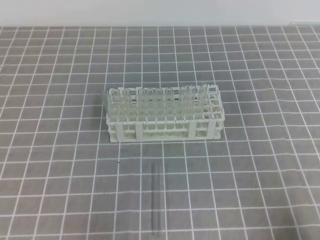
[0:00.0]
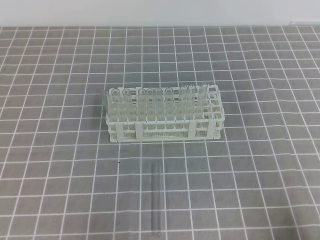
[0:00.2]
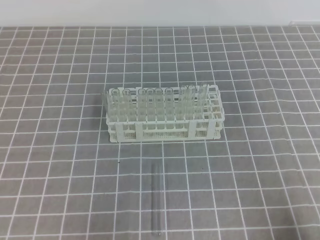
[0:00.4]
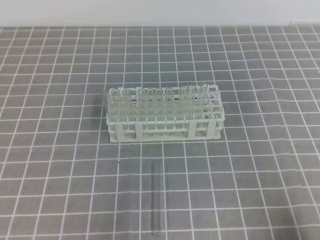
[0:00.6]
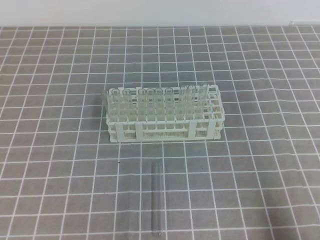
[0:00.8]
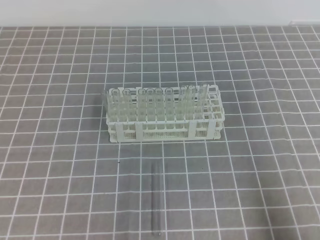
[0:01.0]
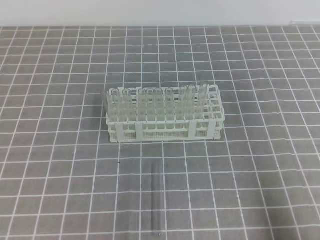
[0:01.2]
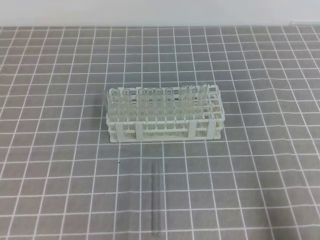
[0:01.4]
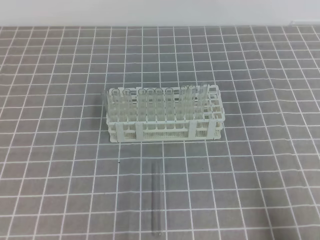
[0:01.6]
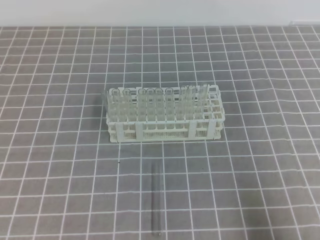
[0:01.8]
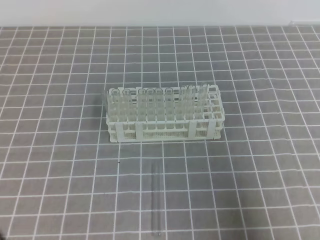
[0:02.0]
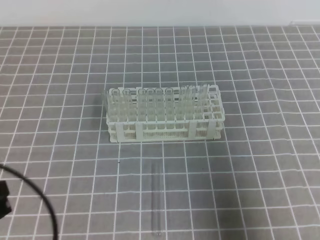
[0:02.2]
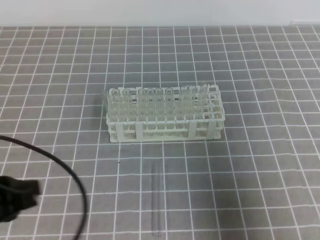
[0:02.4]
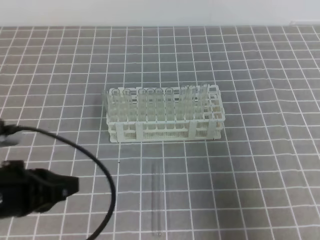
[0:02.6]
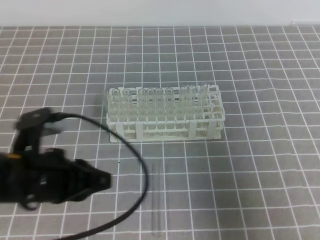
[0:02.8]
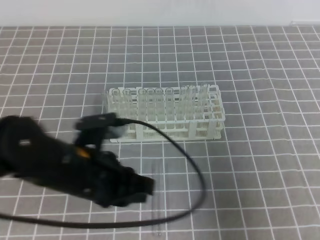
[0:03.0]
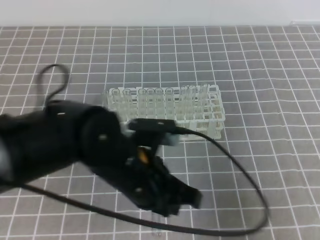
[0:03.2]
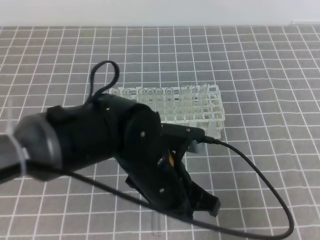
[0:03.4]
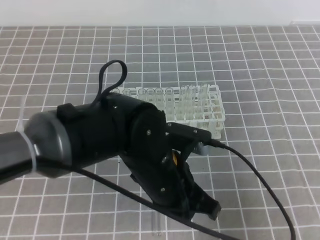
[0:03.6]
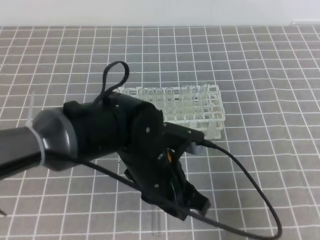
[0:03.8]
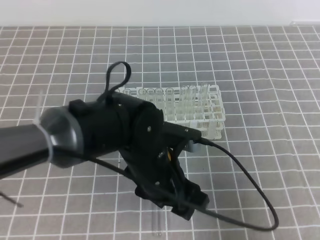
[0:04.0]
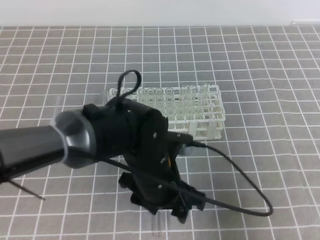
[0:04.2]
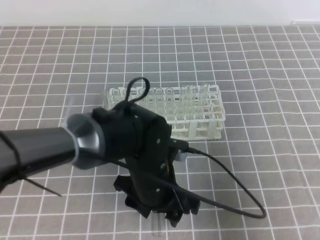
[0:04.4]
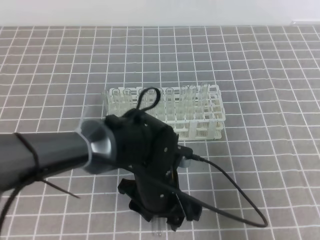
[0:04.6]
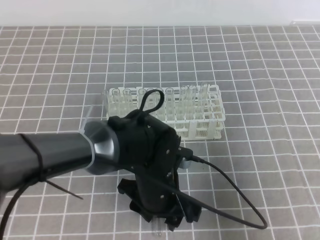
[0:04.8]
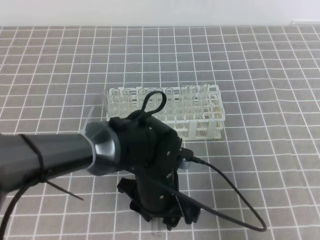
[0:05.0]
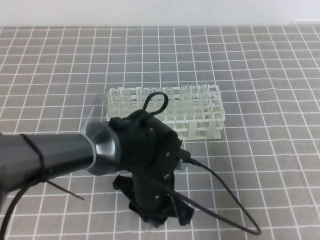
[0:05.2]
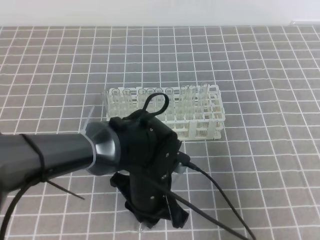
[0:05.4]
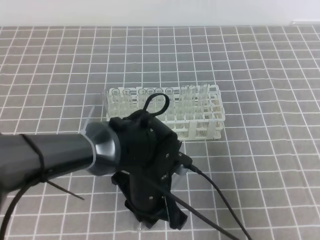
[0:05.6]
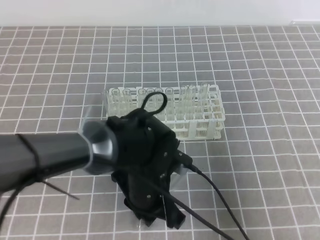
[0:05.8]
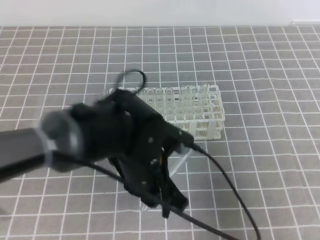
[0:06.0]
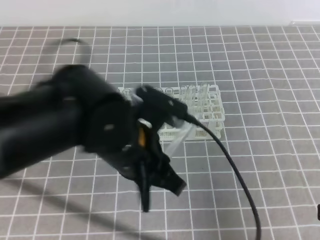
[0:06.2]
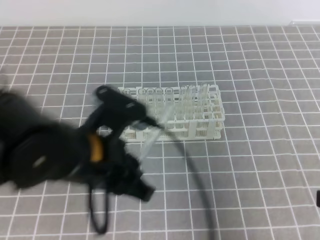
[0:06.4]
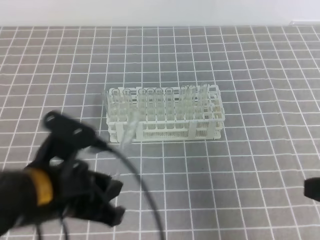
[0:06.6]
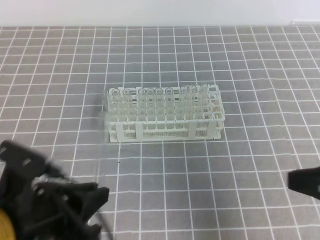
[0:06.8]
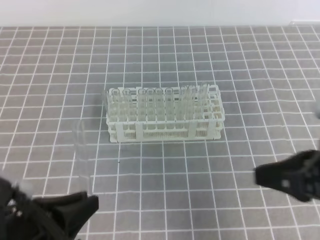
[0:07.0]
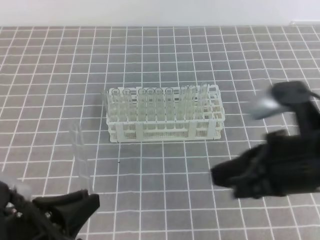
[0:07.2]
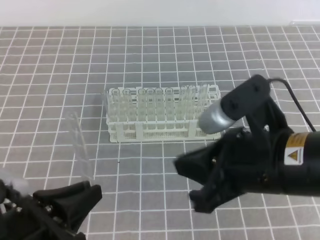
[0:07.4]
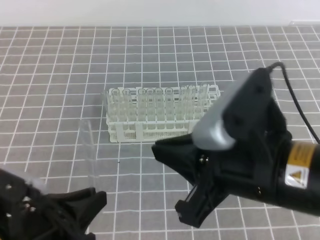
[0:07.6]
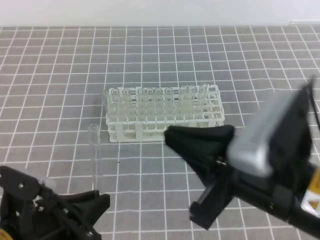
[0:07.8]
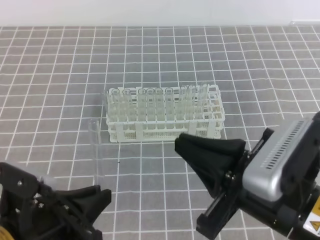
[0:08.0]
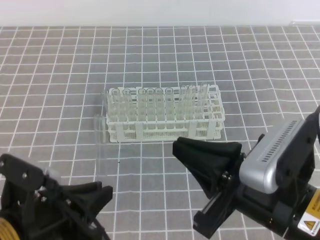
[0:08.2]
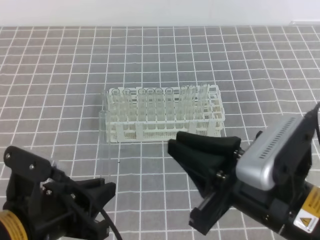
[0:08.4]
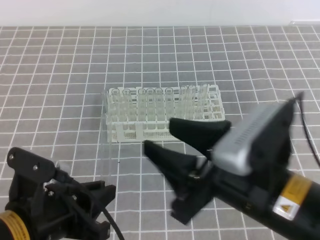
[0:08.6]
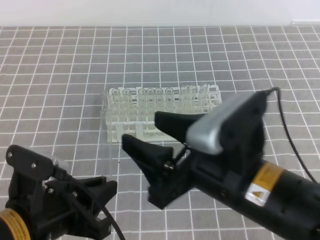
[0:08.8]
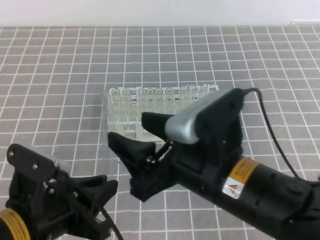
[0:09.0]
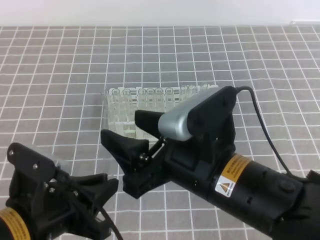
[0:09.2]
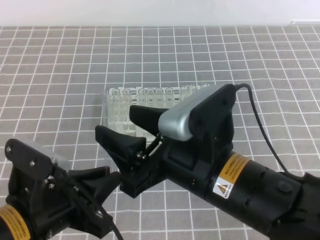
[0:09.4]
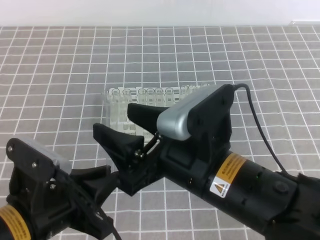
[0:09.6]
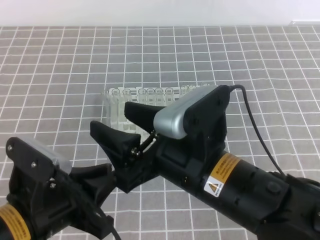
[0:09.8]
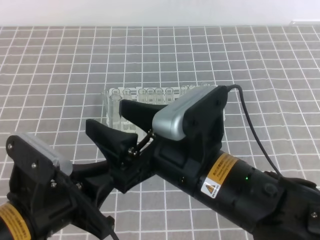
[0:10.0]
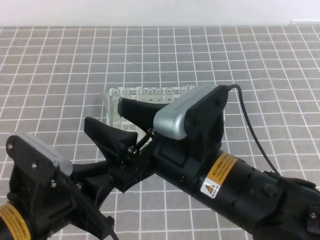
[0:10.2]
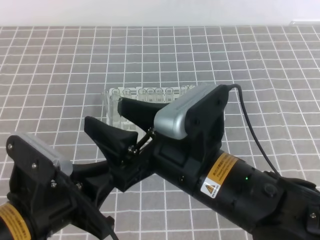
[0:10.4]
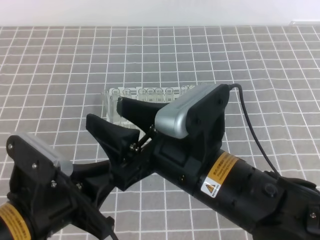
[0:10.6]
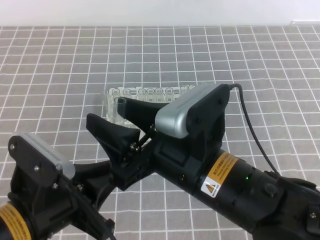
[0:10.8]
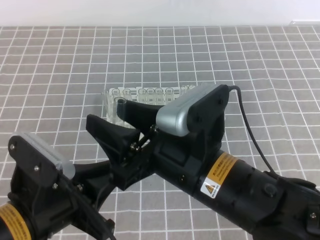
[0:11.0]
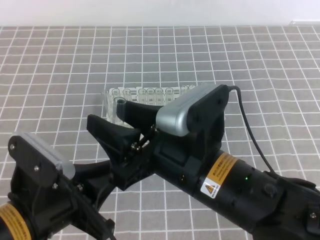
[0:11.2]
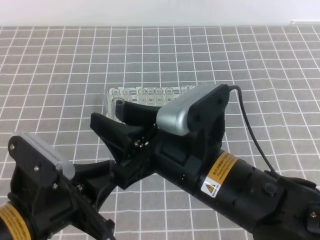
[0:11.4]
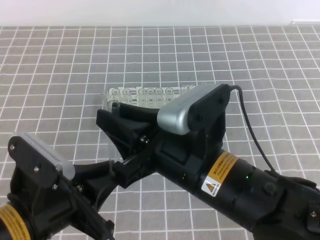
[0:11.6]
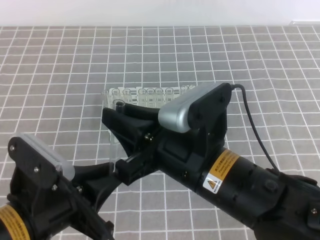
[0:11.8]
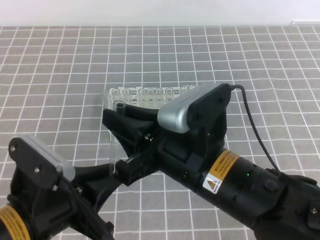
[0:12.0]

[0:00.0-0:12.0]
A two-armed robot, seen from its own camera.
0:01.6 to 0:03.0: The right gripper heads forward and upward, covering roughly 10 cm. The left gripper travels to the right and forward by about 20 cm.
0:03.0 to 0:04.4: The left gripper travels to the right and downward by about 10 cm, and opens.
0:04.4 to 0:06.0: The left gripper closes its fingers.
0:06.0 to 0:07.6: The right gripper is displaced to the left by approximately 15 cm. The left gripper goes roughly 20 cm to the left and backward.
0:07.6 to 0:09.0: The right gripper shifts by some 5 cm, and opens up.
0:09.0 to 0:10.4: The grippers move only a little.
0:10.4 to 0:12.0: The right gripper closes.

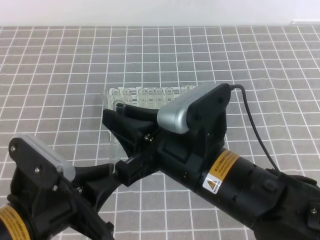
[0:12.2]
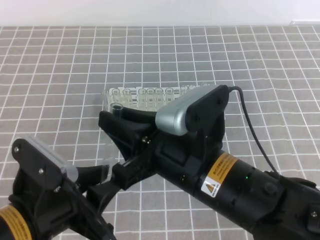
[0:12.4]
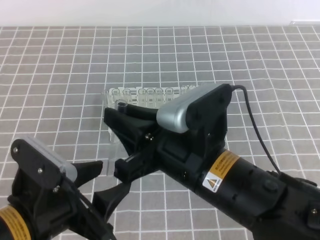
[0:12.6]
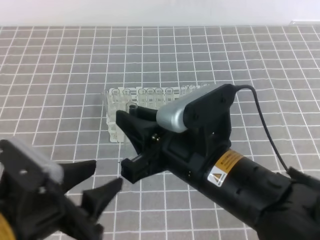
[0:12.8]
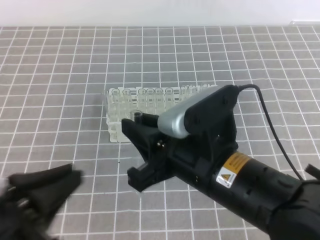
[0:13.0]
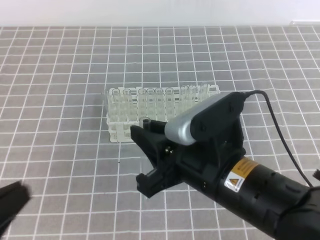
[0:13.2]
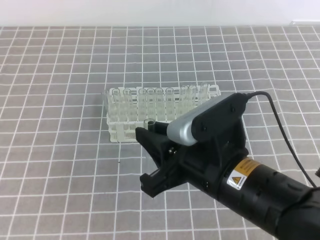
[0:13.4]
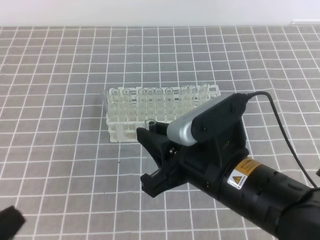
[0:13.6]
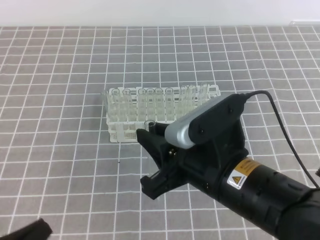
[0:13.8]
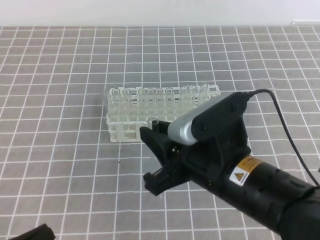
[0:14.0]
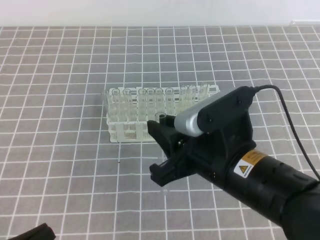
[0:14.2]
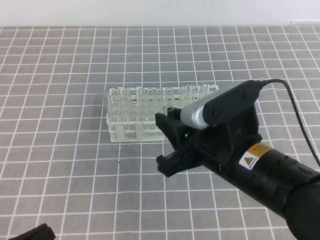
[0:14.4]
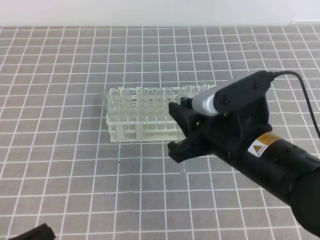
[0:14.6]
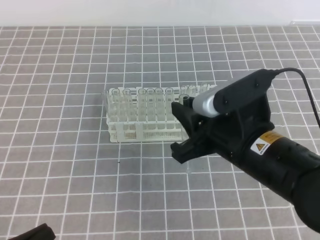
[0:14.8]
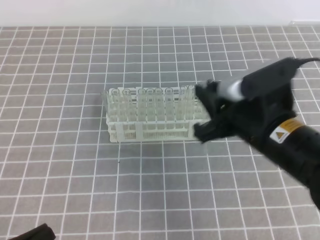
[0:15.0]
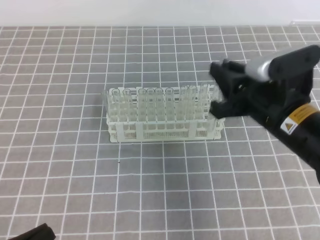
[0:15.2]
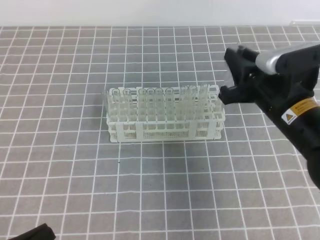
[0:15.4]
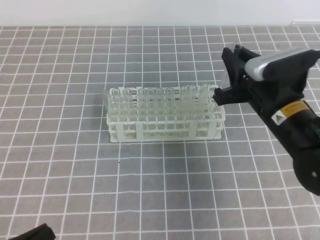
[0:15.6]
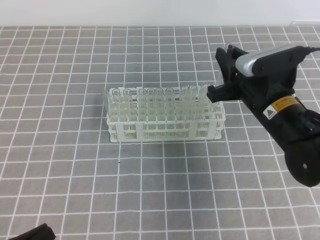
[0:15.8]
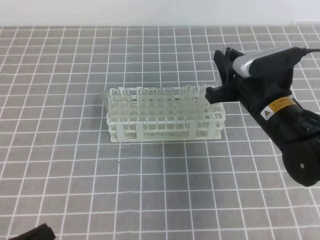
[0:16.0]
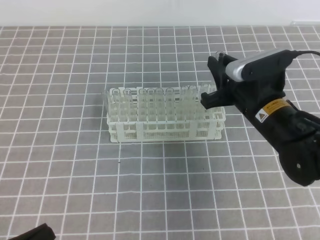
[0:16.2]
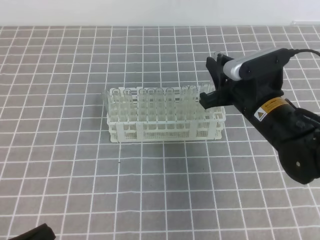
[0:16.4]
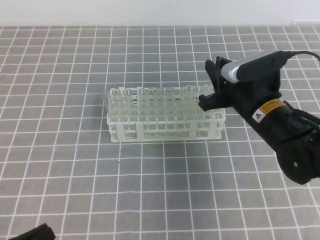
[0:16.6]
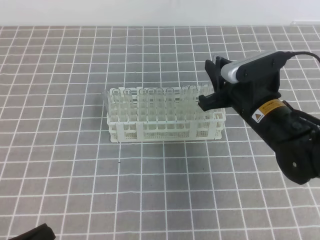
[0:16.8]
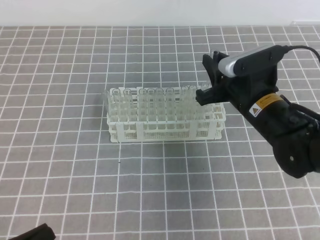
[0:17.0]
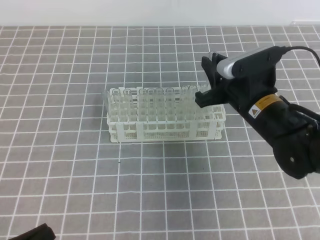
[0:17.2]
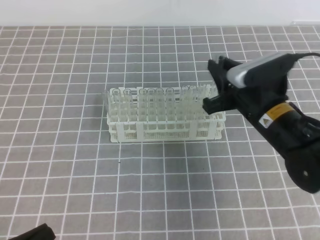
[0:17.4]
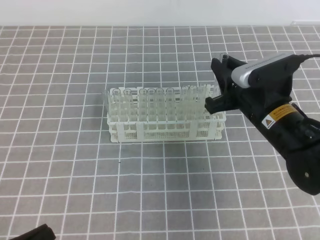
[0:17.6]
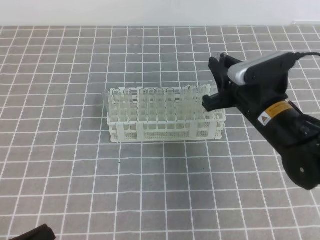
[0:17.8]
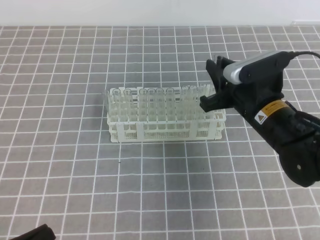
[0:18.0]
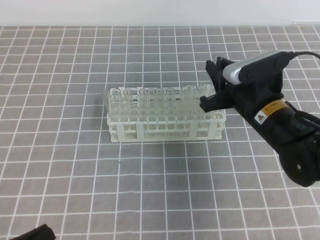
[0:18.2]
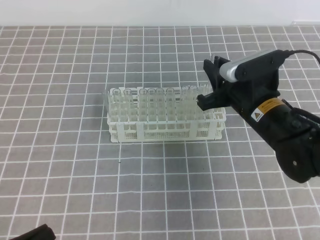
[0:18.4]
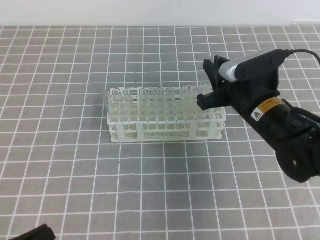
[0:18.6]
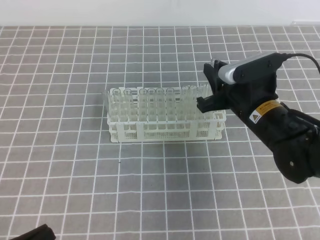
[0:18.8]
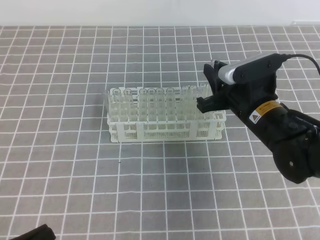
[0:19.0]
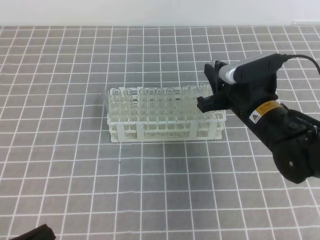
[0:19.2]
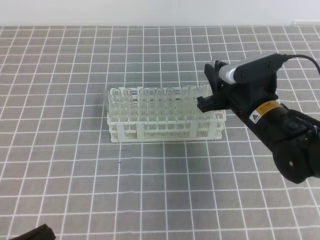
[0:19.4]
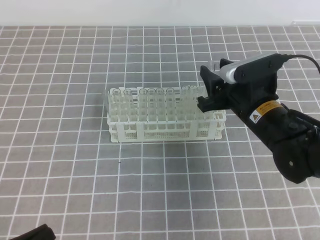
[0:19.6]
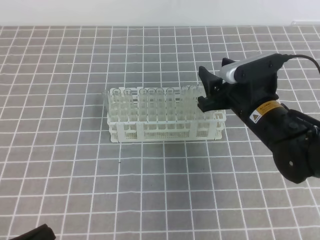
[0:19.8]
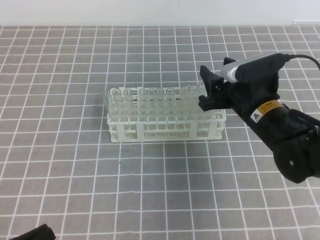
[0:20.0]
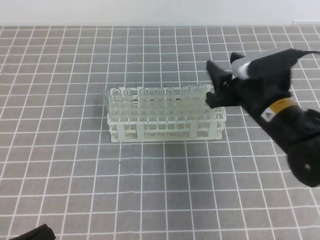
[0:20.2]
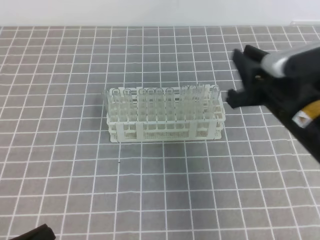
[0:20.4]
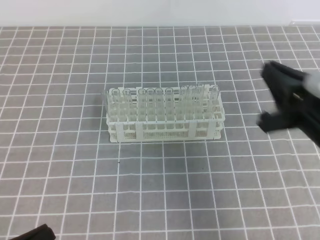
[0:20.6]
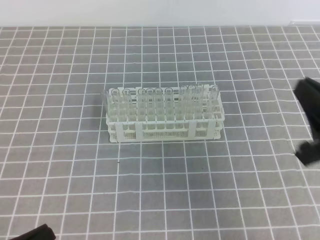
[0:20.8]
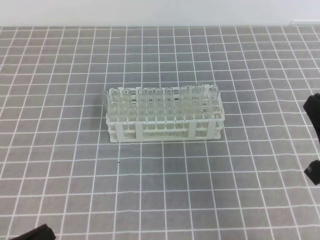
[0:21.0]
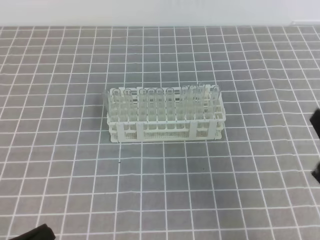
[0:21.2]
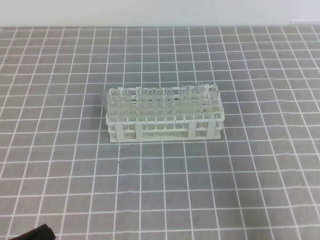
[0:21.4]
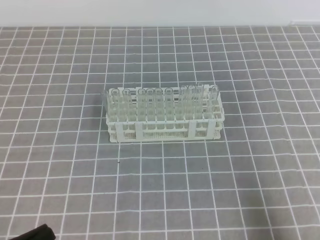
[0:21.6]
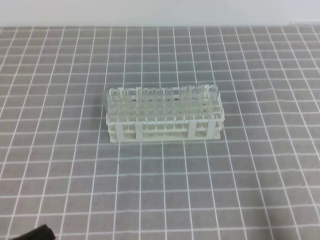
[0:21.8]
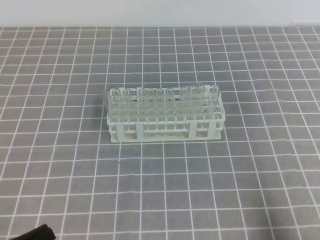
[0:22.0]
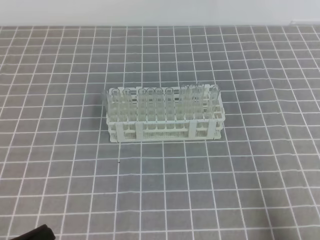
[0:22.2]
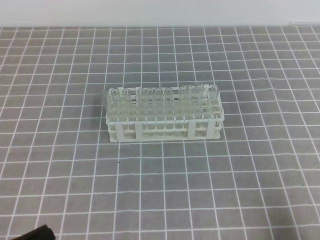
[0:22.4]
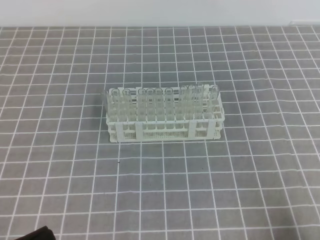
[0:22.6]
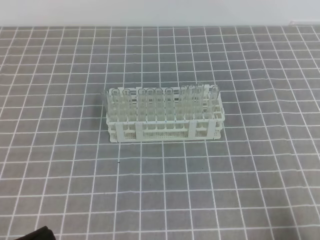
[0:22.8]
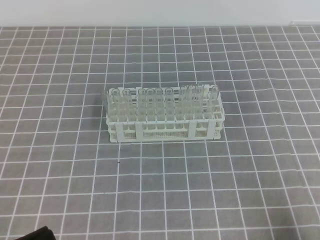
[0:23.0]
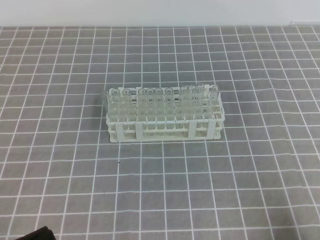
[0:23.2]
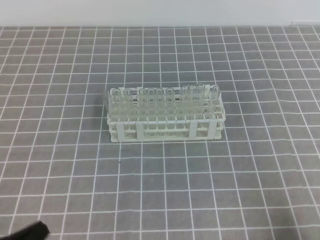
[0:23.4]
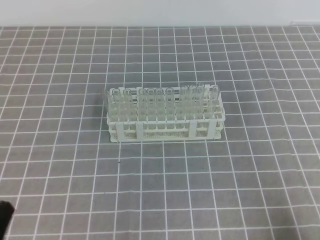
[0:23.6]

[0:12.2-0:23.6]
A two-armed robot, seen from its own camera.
0:12.2 to 0:13.6: The left gripper heads to the left and backward, covering roughly 15 cm, and opens and closes again.
0:13.6 to 0:15.0: The left gripper shifts approximately 5 cm downward; the right gripper shifts roughly 10 cm forward and to the right.
0:15.0 to 0:16.4: The right gripper shifts some 10 cm forward and downward.
0:16.4 to 0:17.8: Both grippers stay about where they are.
0:17.8 to 0:19.4: The grippers make only small movements.
0:19.4 to 0:20.8: The right gripper travels backward, to the right and upward by approximately 20 cm, and closes its fingers.
0:20.8 to 0:22.2: The right gripper heads backward, downward and to the right, covering some 15 cm.
0:22.2 to 0:23.6: The grippers make only small movements.
